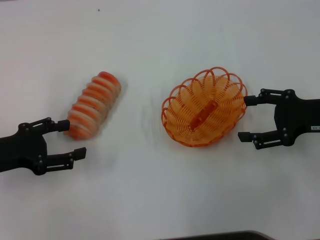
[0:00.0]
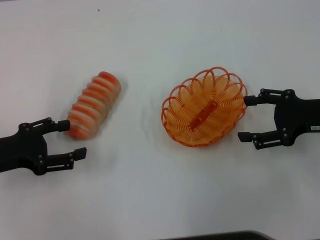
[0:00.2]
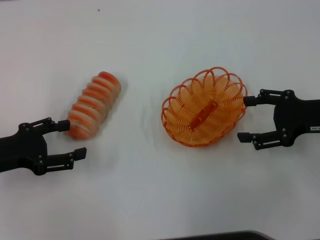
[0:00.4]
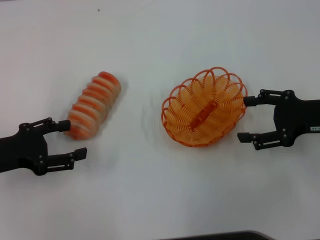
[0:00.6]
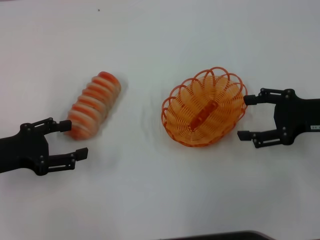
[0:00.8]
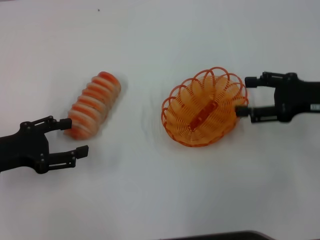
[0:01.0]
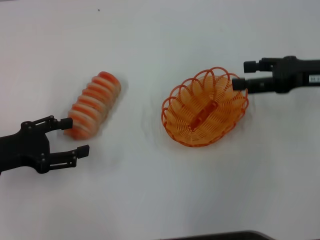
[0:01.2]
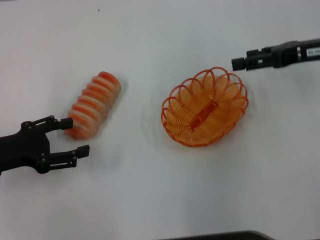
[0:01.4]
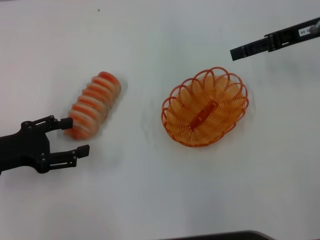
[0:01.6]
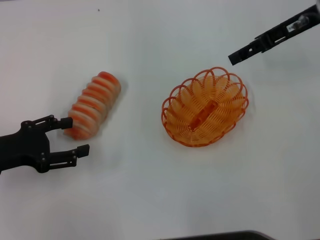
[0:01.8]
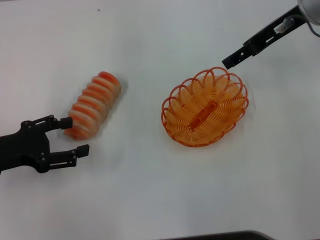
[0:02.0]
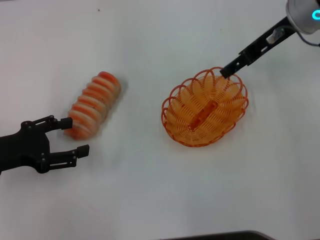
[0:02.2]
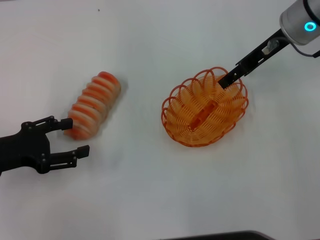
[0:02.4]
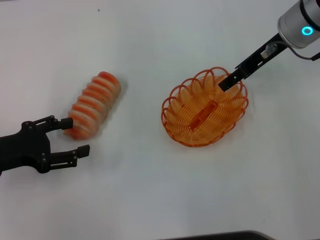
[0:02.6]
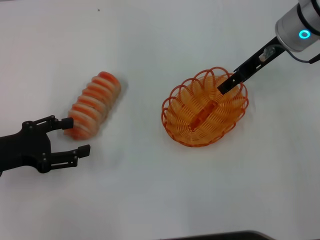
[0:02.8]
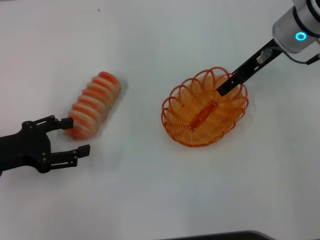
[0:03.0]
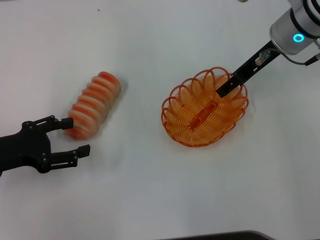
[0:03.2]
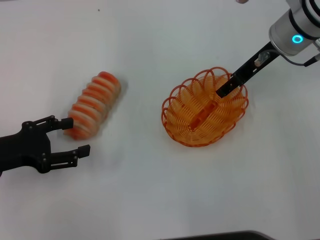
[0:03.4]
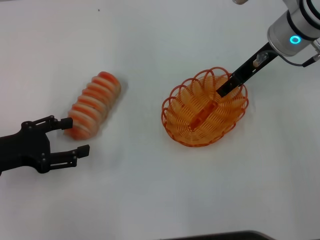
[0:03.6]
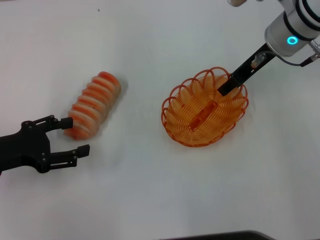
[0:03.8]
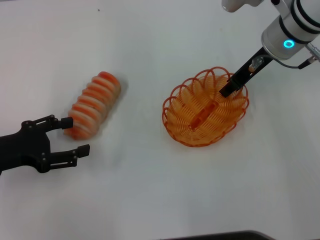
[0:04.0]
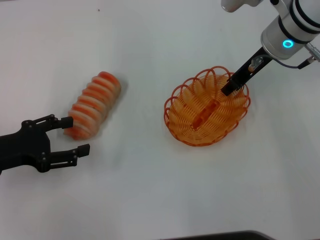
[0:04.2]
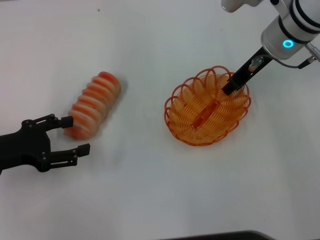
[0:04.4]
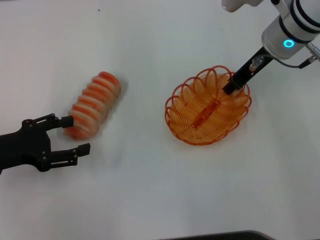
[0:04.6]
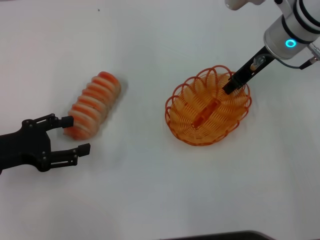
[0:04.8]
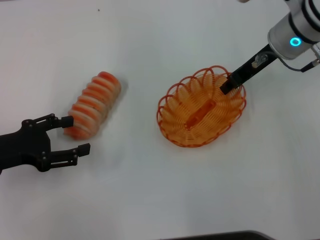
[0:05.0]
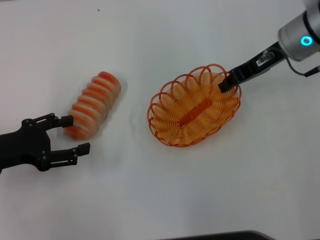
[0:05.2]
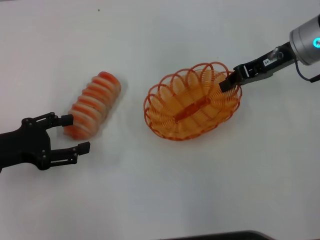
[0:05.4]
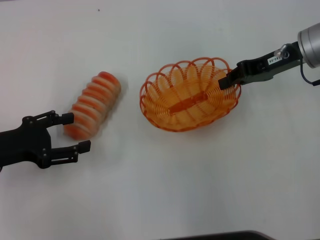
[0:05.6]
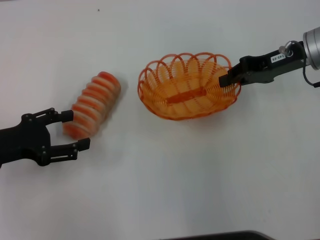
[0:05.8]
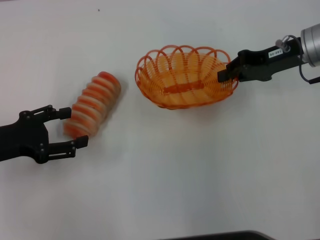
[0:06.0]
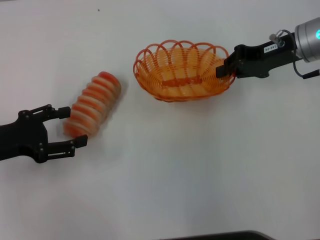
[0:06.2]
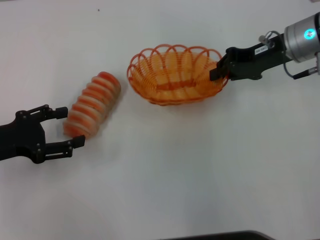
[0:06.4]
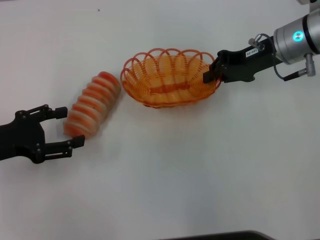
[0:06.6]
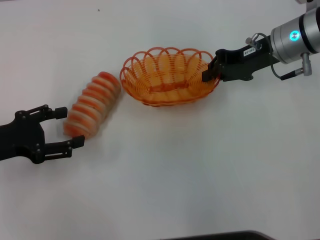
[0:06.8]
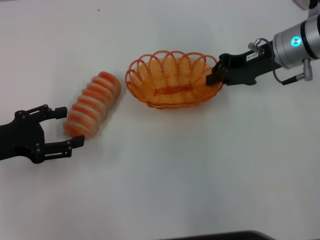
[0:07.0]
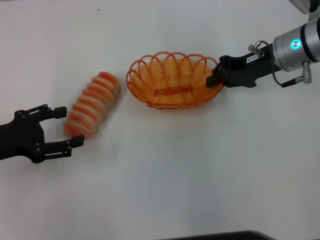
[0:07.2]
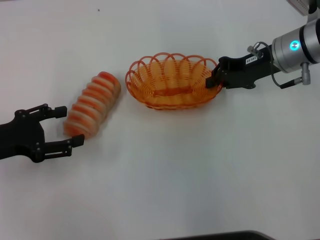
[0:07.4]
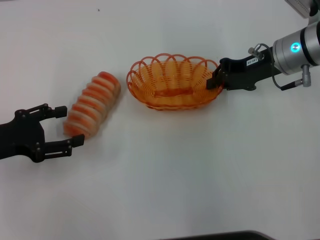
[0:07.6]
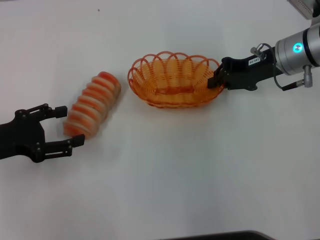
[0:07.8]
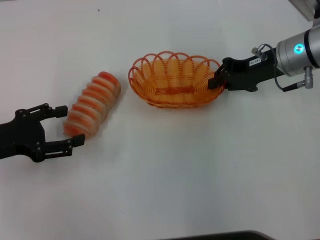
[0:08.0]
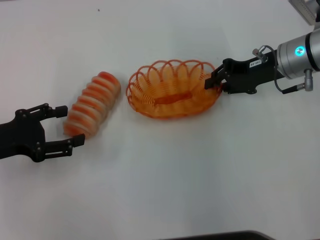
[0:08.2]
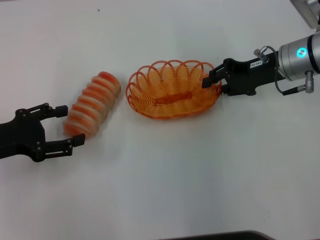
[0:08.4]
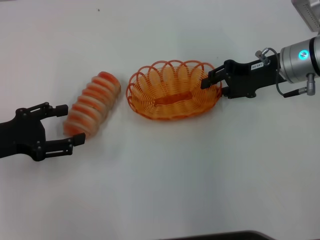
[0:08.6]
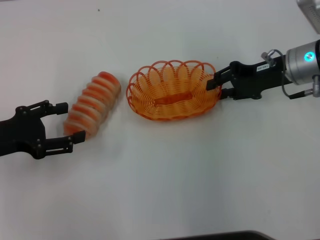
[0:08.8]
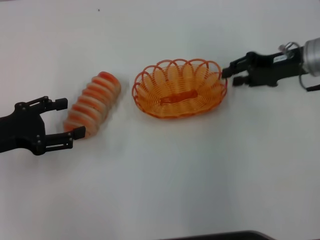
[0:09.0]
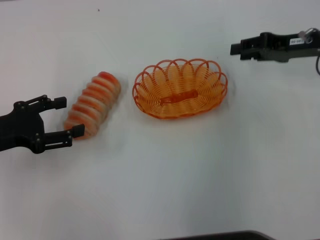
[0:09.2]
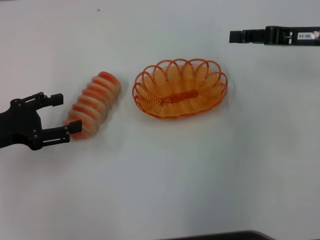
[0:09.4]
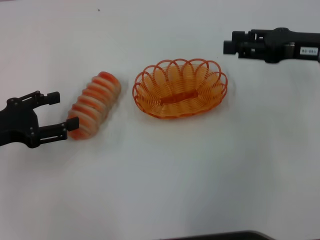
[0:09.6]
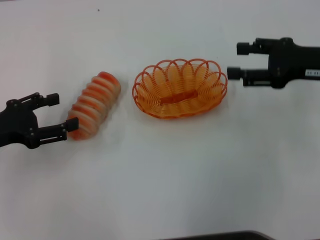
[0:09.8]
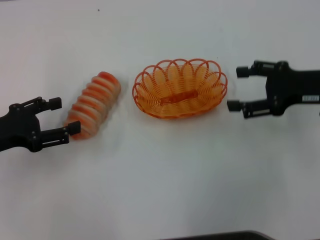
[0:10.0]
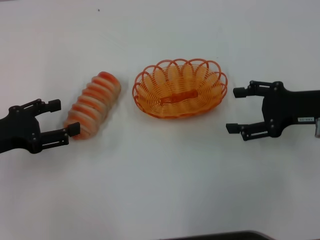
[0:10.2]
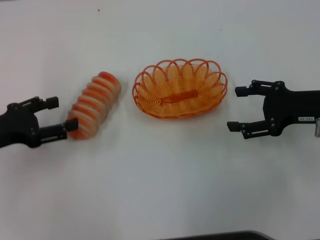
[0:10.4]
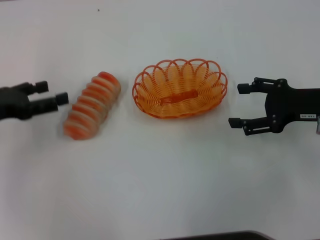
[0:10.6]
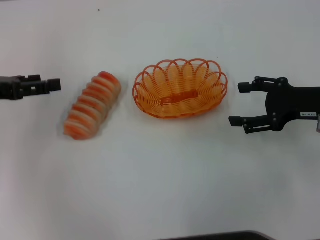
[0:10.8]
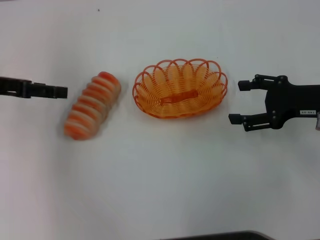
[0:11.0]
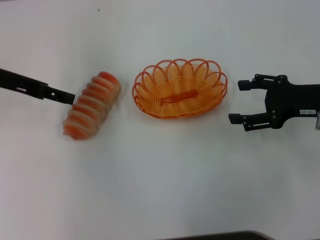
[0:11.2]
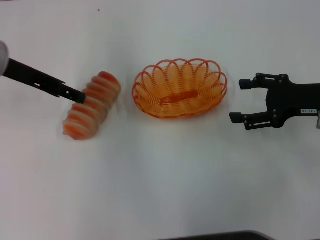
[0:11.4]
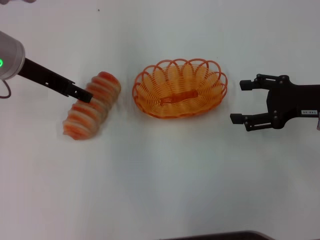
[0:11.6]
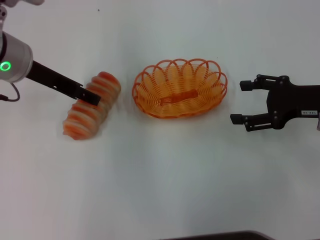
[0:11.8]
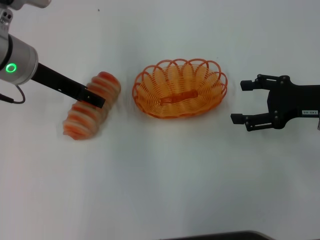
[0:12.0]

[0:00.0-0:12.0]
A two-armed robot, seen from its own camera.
Step, 0.0 to 5.2 s: Pick up the basket with the right gripper.
Step, 5.4 to 9.0 s: Place the basket in the center of view with the right gripper.
0.0 to 1.6 s: The right gripper goes some 15 cm forward and upward.
1.6 to 3.0 s: The right gripper is displaced to the left by some 5 cm.
3.0 to 4.4 s: The right gripper closes.
4.4 to 6.0 s: The right gripper heads to the right, covering approximately 5 cm.
6.0 to 7.6 s: The grippers stay close to where they were, moving slightly.
7.6 to 9.0 s: The right gripper opens up.
9.0 to 10.4 s: The right gripper is displaced backward by some 10 cm, and opens.
10.4 to 12.0 s: The left gripper shifts about 20 cm to the right, forward and upward.

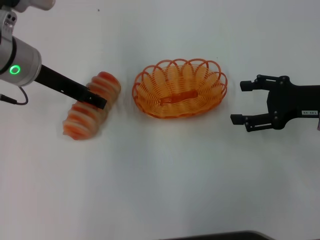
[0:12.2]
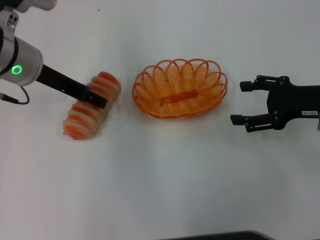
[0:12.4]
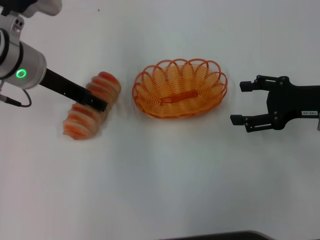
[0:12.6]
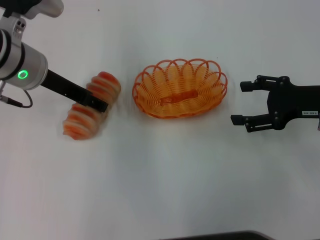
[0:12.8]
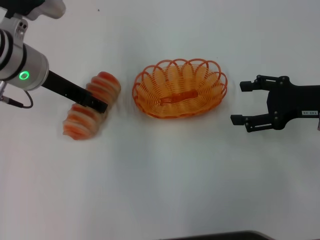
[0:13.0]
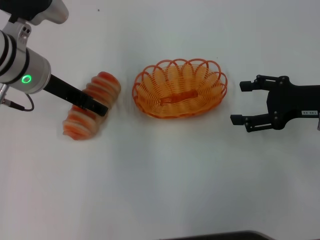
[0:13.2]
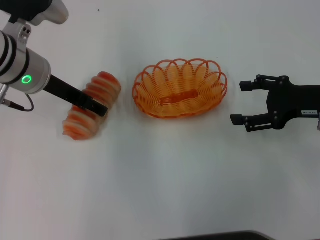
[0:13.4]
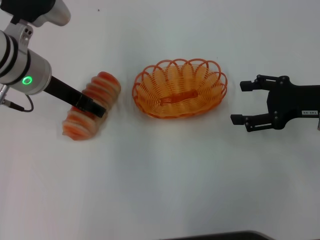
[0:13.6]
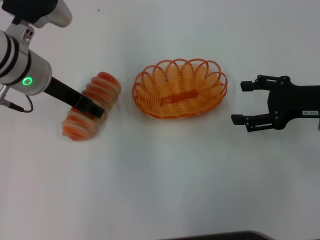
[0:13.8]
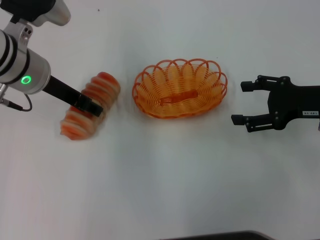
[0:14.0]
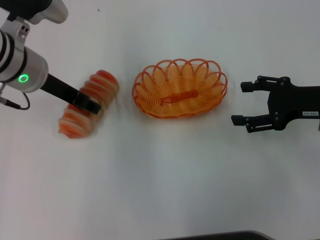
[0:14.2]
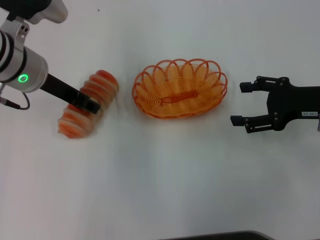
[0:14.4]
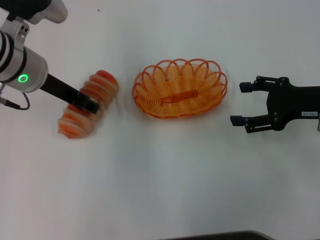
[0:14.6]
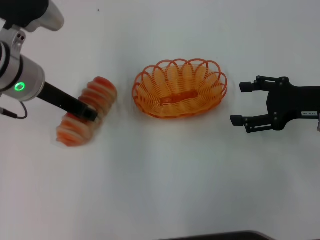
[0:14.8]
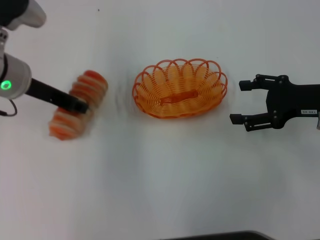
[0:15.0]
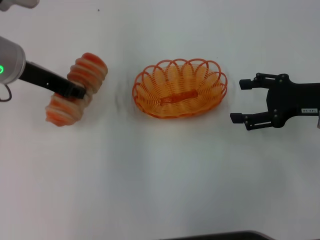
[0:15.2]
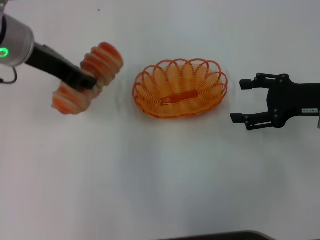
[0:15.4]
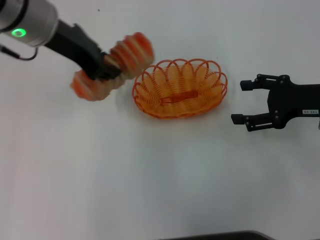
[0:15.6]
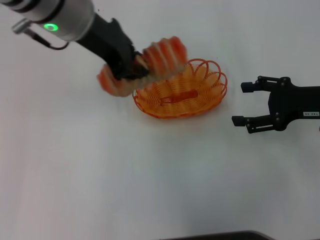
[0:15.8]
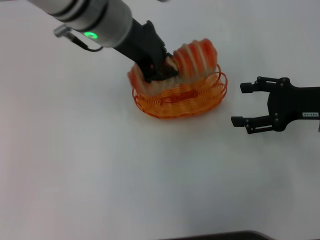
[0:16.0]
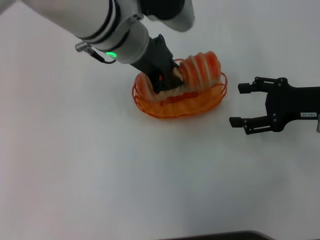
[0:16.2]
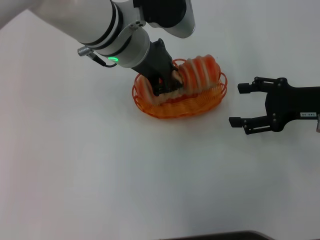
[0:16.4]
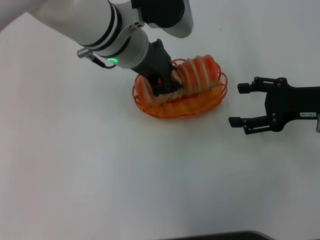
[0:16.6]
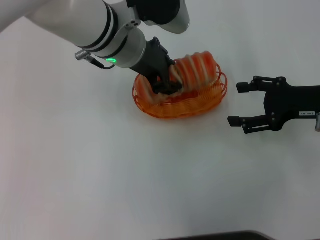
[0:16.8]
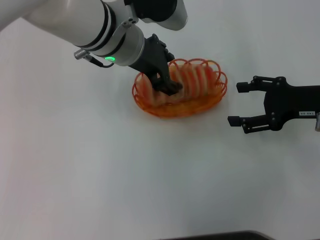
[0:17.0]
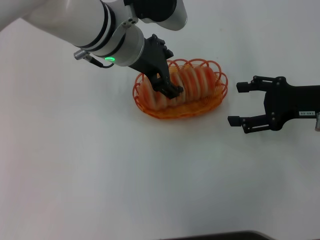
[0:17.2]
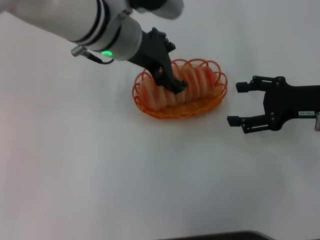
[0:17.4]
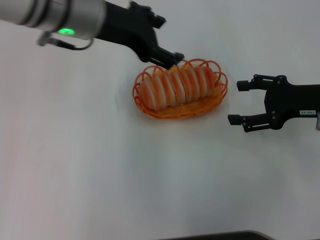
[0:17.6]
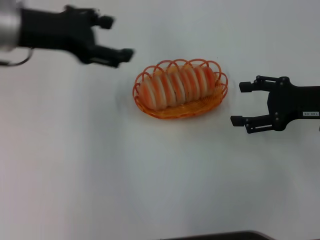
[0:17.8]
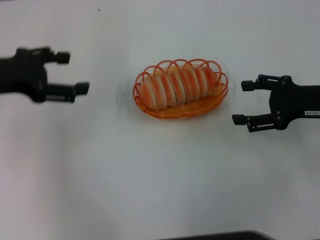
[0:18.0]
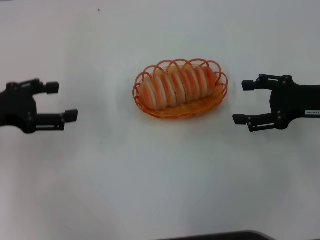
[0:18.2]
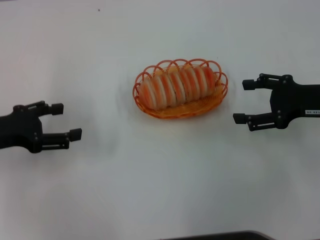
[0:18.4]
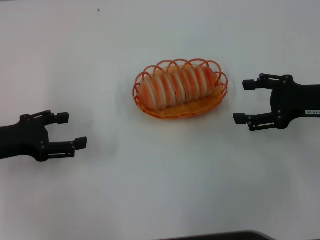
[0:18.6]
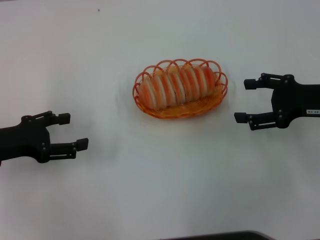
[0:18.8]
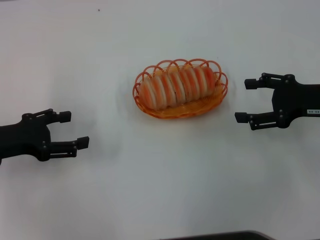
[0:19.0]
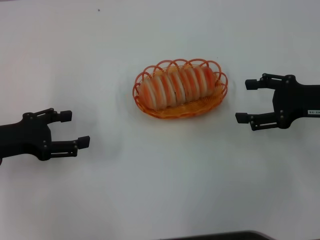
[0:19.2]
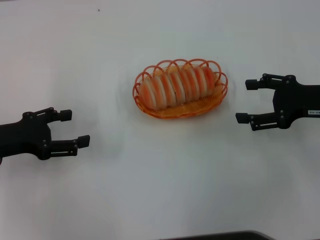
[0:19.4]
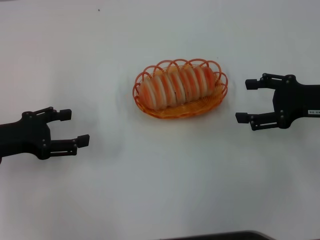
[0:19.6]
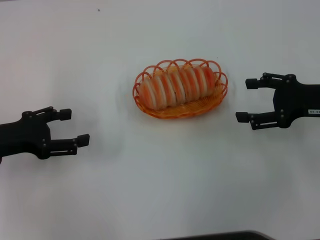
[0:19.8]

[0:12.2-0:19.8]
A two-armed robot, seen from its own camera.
Step, 12.2 to 15.0 s: Pick up the long bread with the left gripper.
Step, 15.2 to 17.6 s: Place the long bread into the basket with the left gripper.
12.2 to 13.8 s: There are only small adjustments of the grippers.
13.8 to 15.2 s: The left gripper closes up.
15.2 to 16.8 s: The left gripper goes approximately 15 cm to the right.
16.8 to 18.2 s: The left gripper moves to the left, some 25 cm, and opens.
18.2 to 19.8 s: The grippers move only a little.

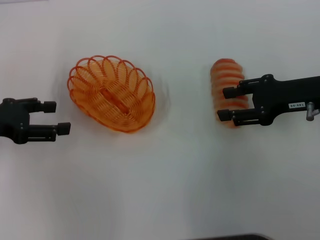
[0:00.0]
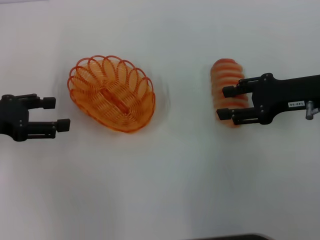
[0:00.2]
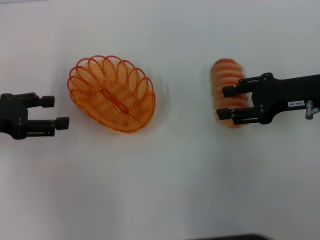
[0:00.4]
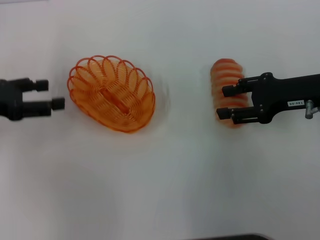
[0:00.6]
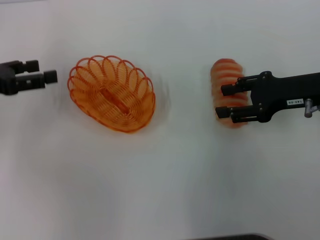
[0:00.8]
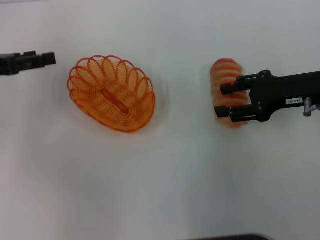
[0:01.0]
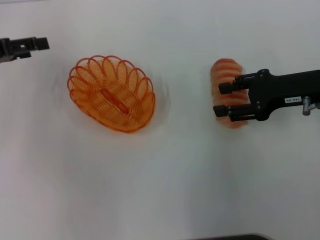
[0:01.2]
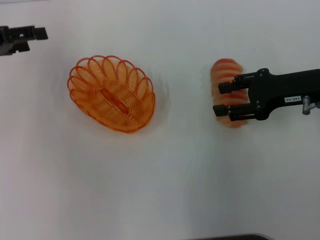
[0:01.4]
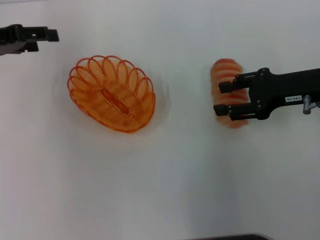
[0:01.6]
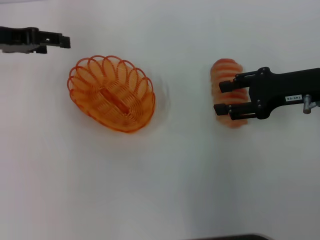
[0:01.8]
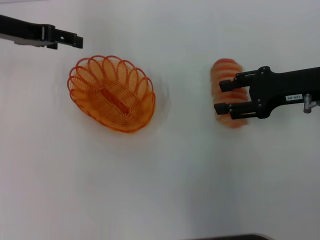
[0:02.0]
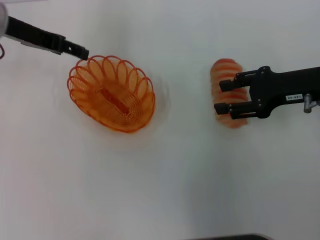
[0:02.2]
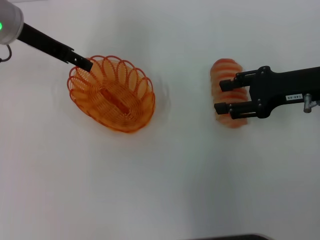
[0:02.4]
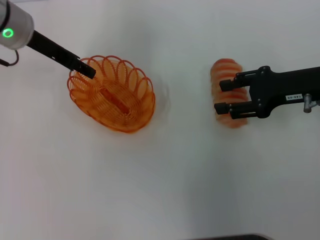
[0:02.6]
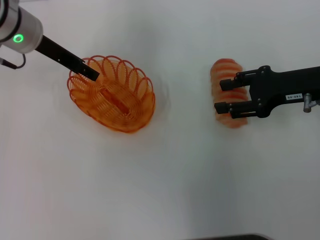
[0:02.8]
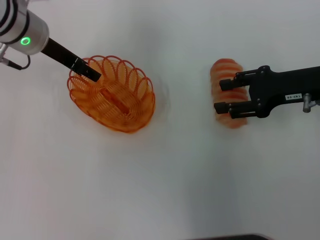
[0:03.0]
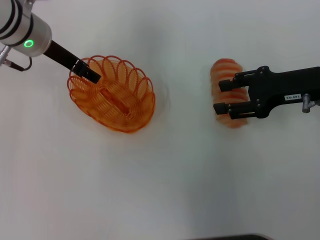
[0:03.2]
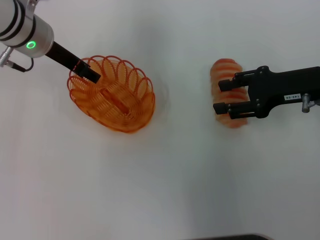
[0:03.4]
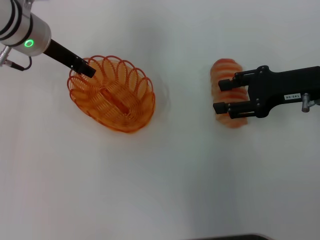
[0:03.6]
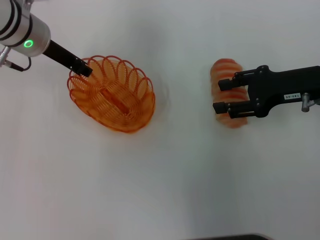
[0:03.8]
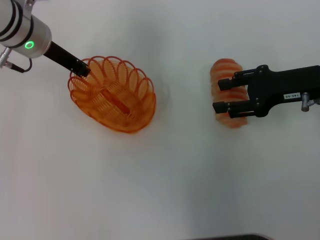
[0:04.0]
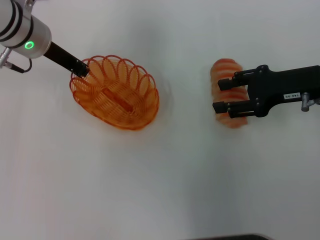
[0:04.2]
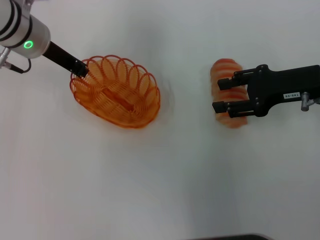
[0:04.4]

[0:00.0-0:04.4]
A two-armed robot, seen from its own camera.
0.0 to 1.4 s: The left gripper moves forward, about 5 cm.
1.4 to 3.0 s: The left gripper moves to the right, roughly 15 cm.
3.0 to 4.4 s: The left gripper closes up.
